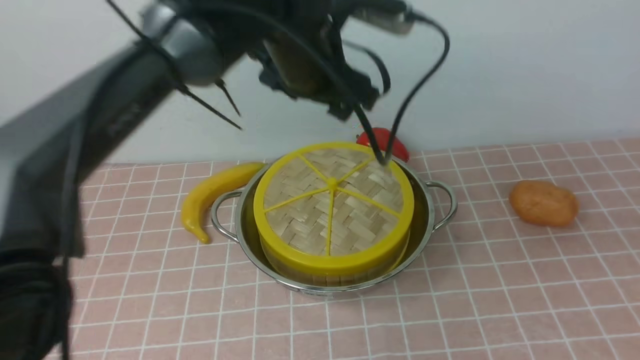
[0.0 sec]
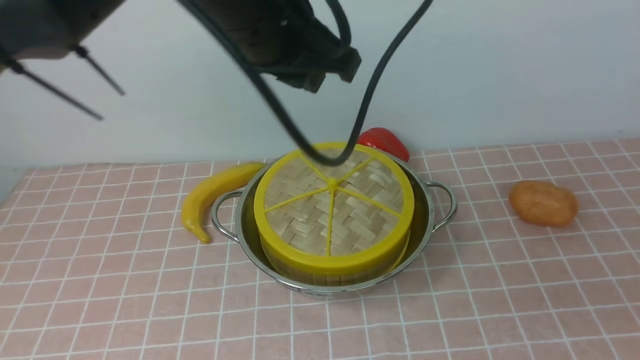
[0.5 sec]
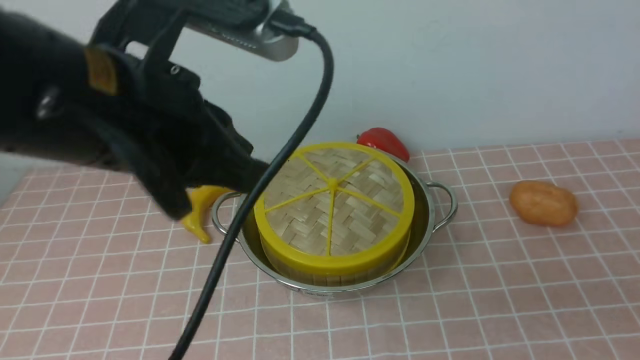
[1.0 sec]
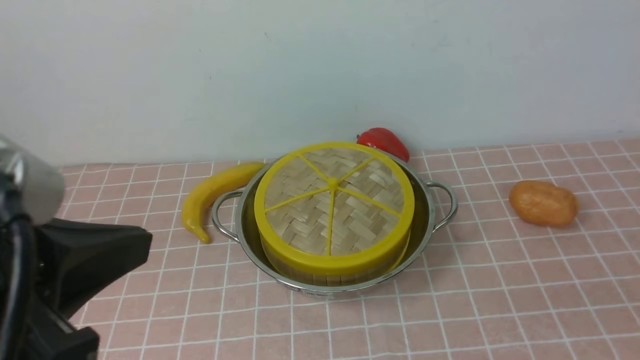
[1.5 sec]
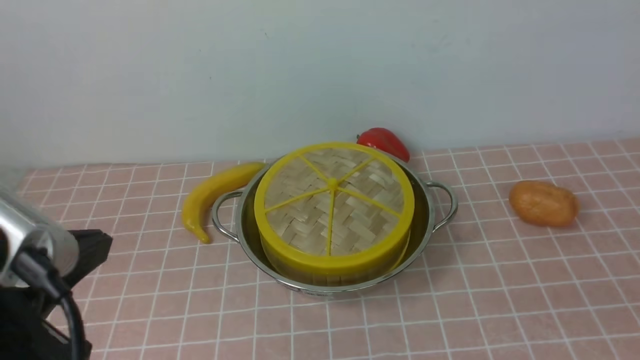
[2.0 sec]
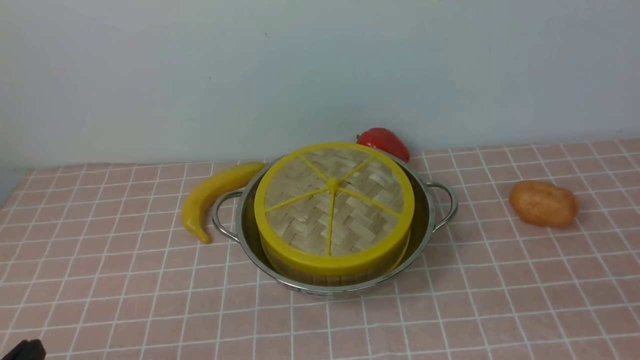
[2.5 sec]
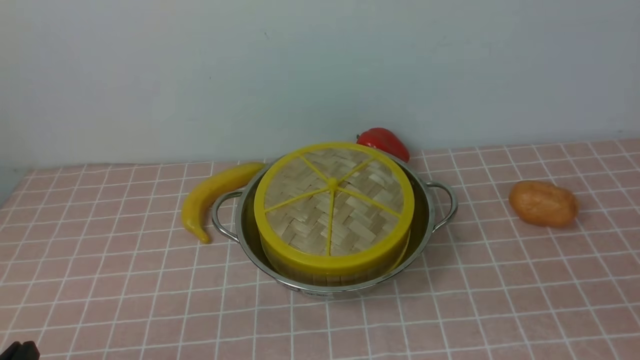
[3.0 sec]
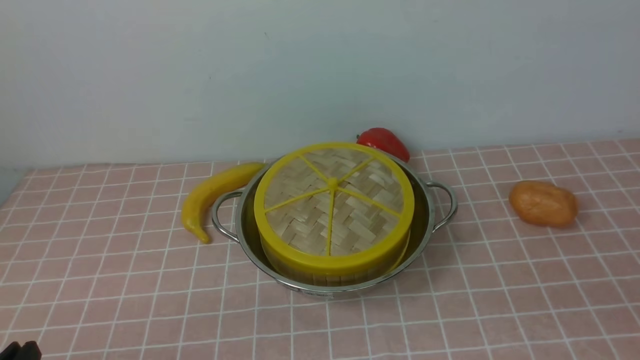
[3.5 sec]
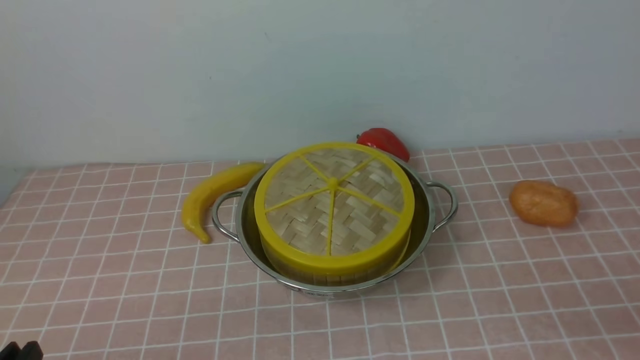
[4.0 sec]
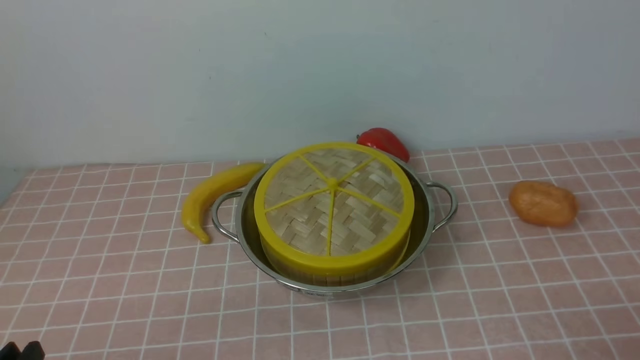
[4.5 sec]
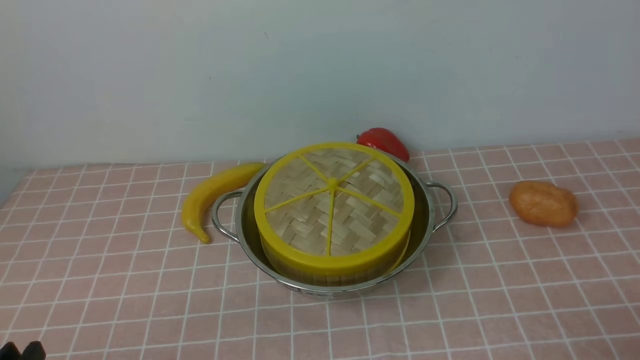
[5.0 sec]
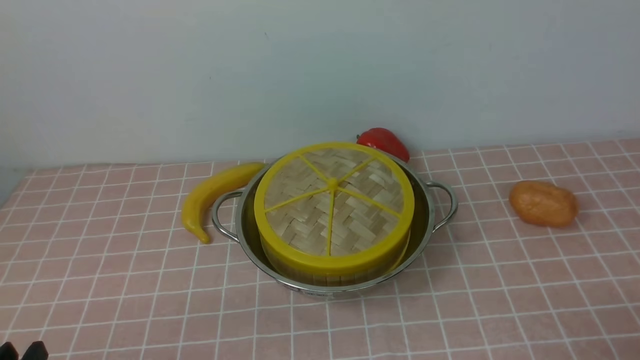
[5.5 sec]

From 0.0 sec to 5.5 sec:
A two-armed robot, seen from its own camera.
Task of the whole recording: place the steamer in the pot on the pink tablecloth, and put the lid on the steamer.
From 0.0 sec to 2.0 sec: The right gripper heads downward, covering approximately 5 cm, and closes its fingers, while the left gripper moves backward and to the left, some 35 cm, and closes up.
From 2.0 sec to 3.5 sec: The left gripper moves downward, about 15 cm.
